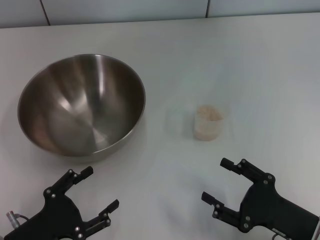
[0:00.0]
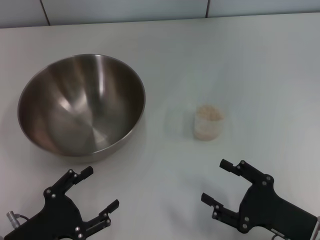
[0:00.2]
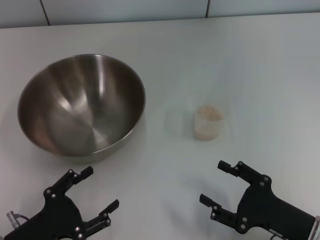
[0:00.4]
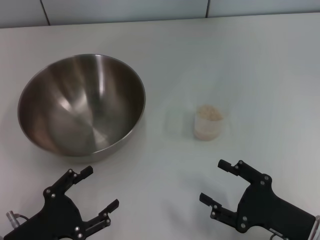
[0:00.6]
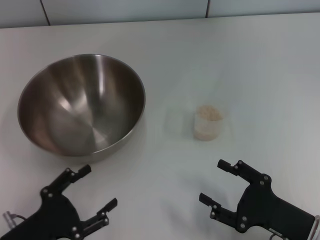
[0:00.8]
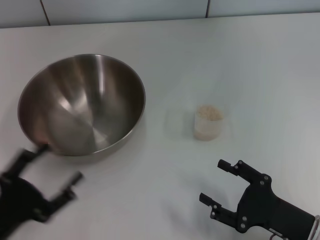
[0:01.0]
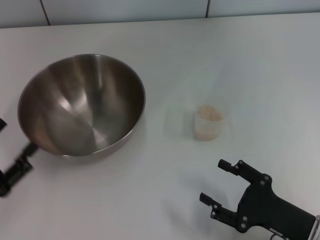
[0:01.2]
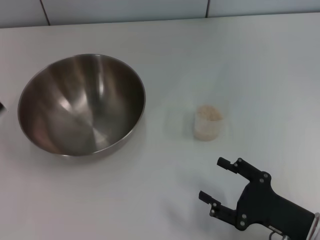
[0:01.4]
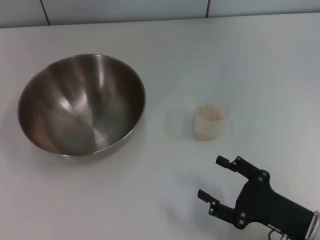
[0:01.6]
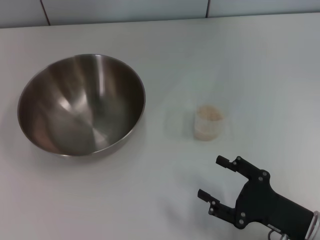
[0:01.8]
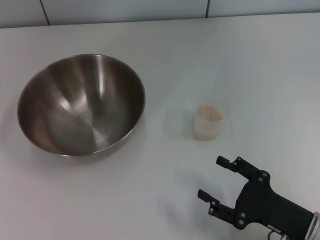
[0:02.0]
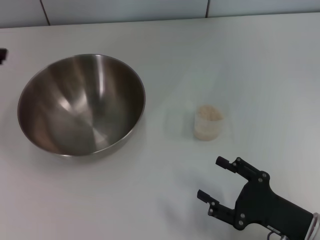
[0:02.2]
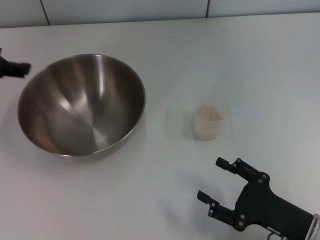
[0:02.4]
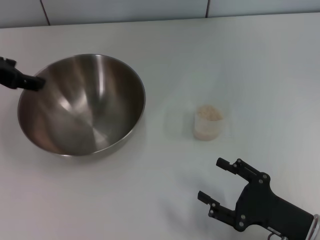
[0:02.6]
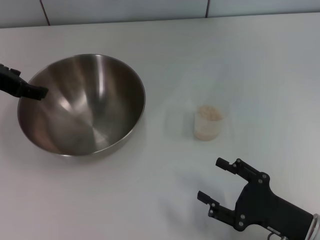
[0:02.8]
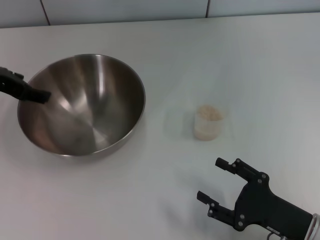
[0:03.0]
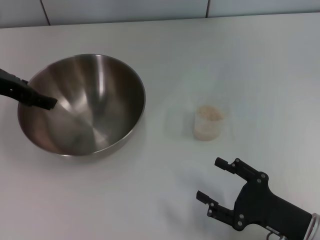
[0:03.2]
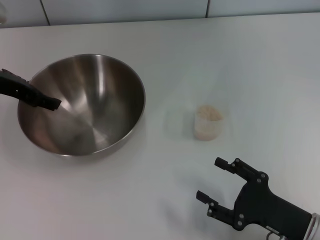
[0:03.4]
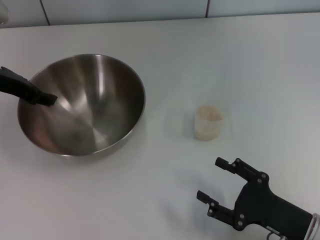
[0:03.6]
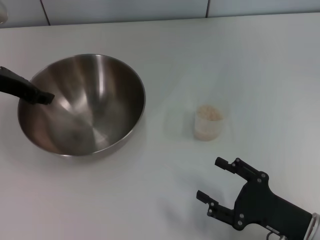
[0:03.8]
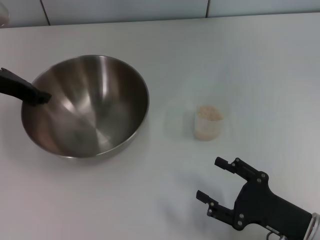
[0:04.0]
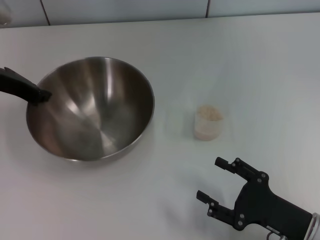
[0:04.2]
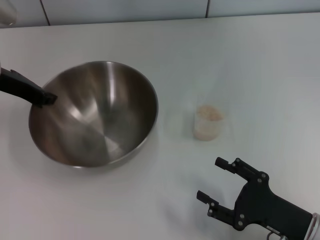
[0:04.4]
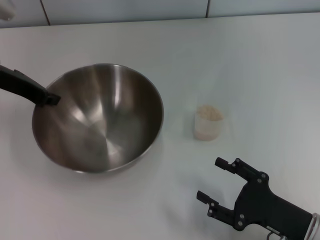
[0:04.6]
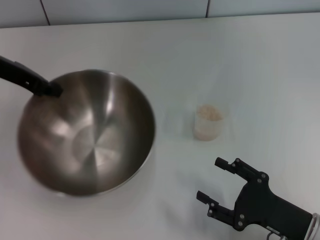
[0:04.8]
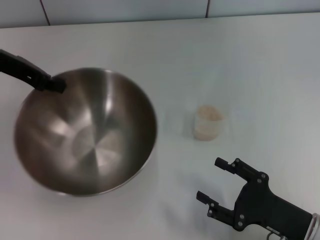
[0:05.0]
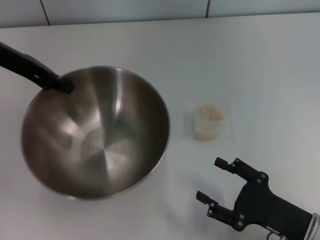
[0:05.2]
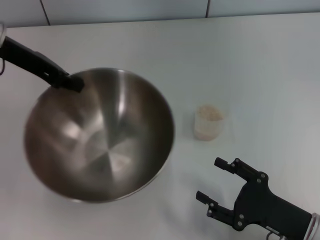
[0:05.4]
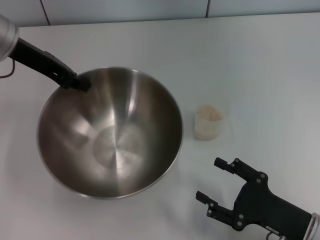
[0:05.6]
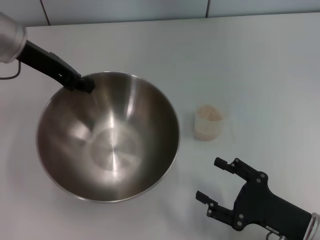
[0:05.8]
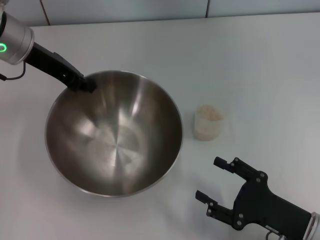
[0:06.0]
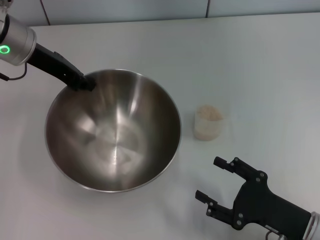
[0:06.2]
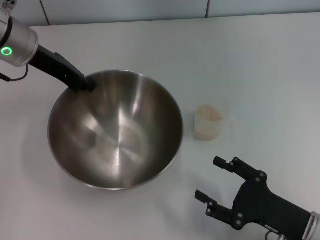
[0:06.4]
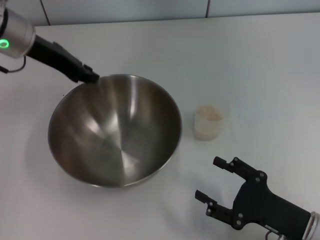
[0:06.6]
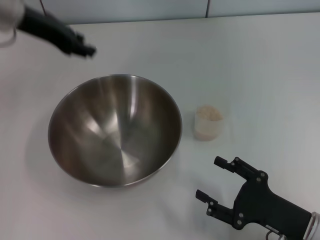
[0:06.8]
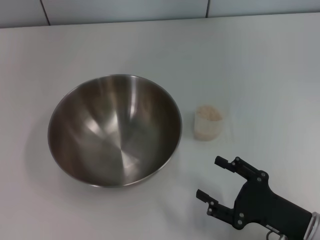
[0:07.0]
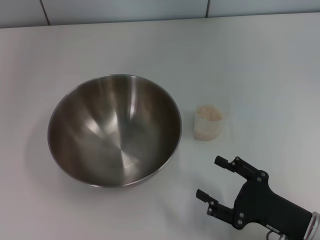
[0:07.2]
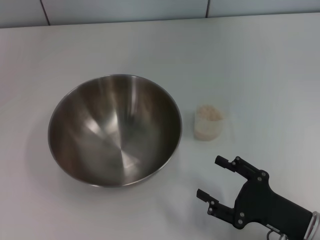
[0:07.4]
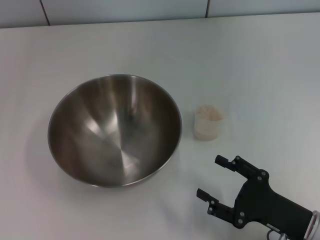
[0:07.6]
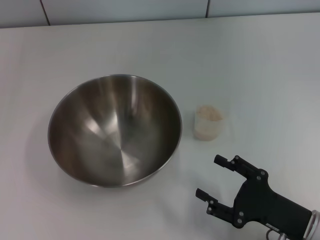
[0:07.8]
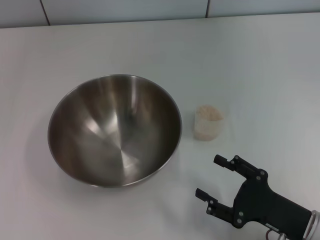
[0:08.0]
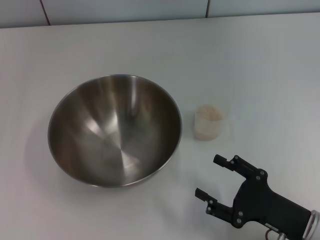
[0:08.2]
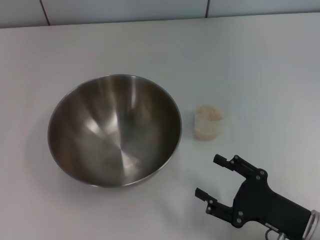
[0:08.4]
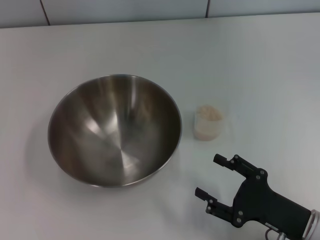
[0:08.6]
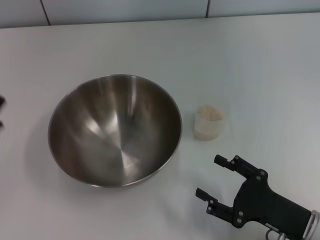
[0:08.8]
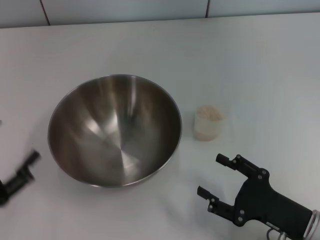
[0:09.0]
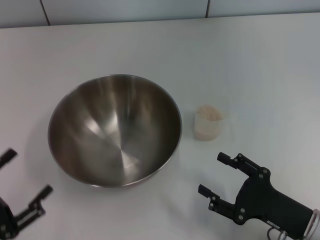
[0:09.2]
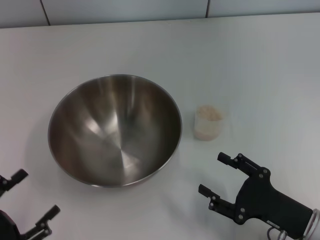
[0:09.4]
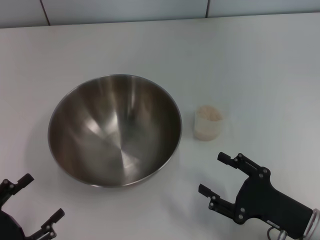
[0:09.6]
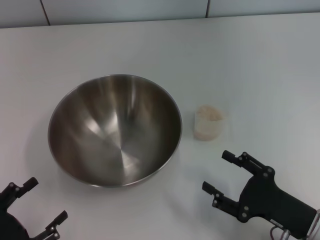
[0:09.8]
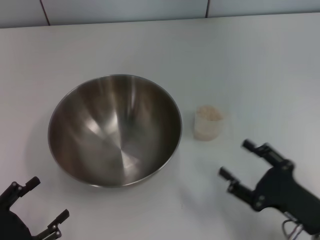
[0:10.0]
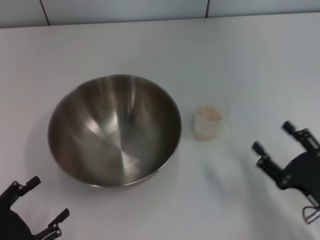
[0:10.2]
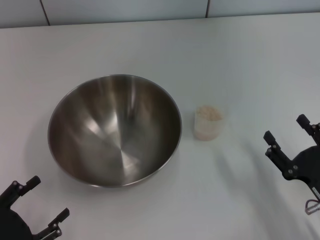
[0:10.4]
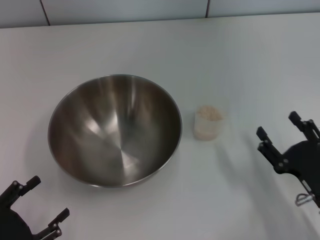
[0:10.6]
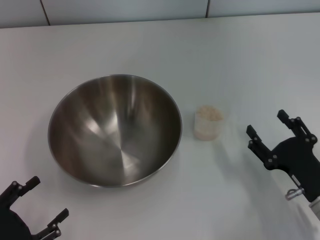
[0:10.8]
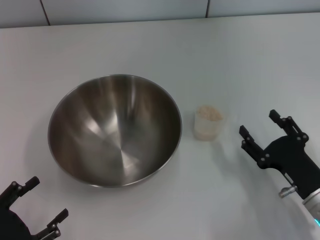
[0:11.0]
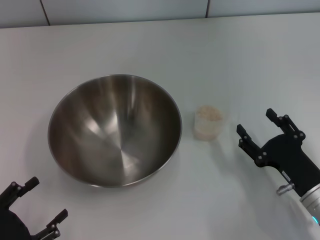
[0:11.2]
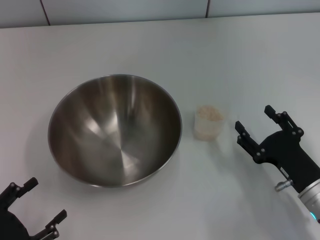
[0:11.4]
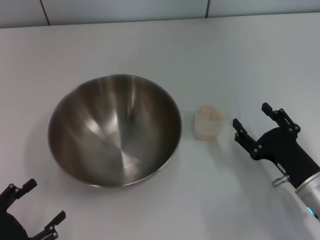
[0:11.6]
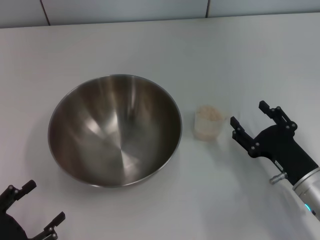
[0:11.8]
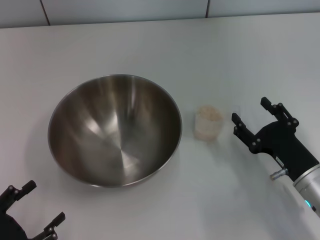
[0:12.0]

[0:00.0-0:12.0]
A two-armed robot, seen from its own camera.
Task of the whole recording: Place the bowl in the middle of the table with one hand and pour the rice from the grain cup into it with the other hand.
Step, 0:00.0 to 0:05.0: Pick up the bowl with the left gripper.
Step, 0:05.2 to 0:06.8: Place the bowl in the center of view with the left gripper.
0:00.0 to 0:01.6: The left gripper travels upward, to the left and forward by roughly 20 cm.
0:01.6 to 0:03.0: The left gripper shifts some 15 cm forward and to the right.
0:03.0 to 0:04.4: The left gripper closes up.
0:04.4 to 0:06.0: The left gripper shifts by some 5 cm.
0:06.0 to 0:07.6: The left gripper shifts about 15 cm backward, to the left and upward, and opens its fingers.
0:07.6 to 0:09.0: The left gripper moves downward and backward, roughly 25 cm.
0:09.0 to 0:10.4: The left gripper ends up some 5 cm from where it was.
0:10.4 to 0:12.0: The right gripper goes some 5 cm forward.

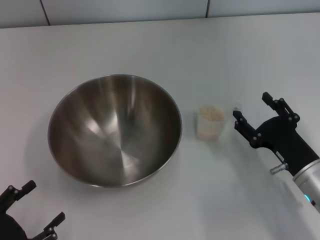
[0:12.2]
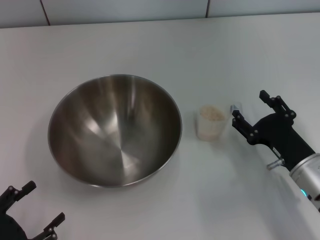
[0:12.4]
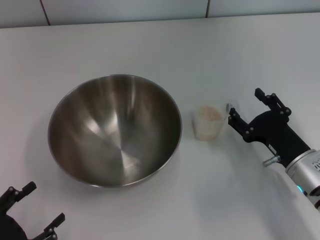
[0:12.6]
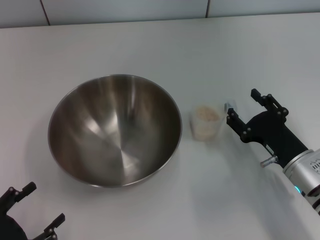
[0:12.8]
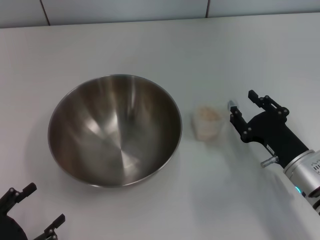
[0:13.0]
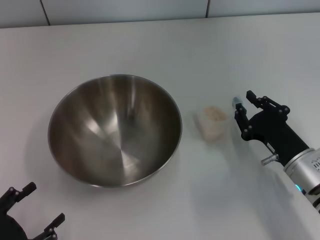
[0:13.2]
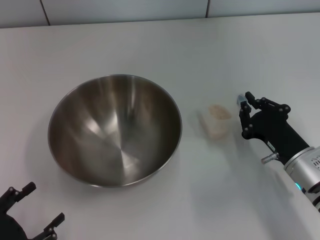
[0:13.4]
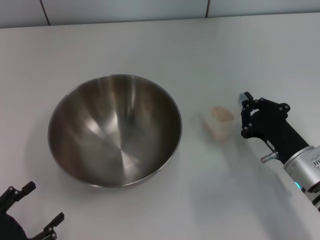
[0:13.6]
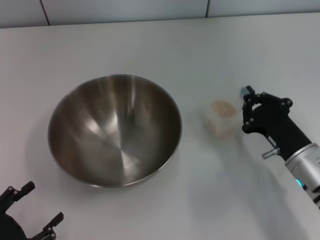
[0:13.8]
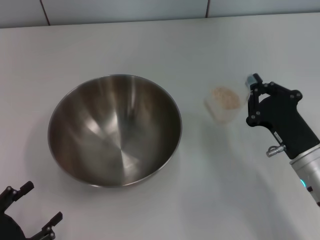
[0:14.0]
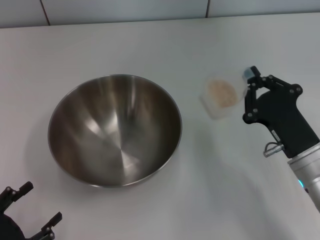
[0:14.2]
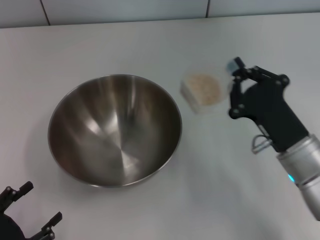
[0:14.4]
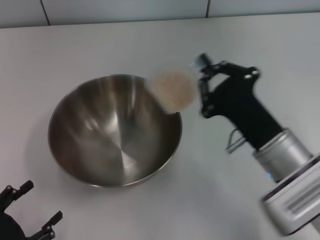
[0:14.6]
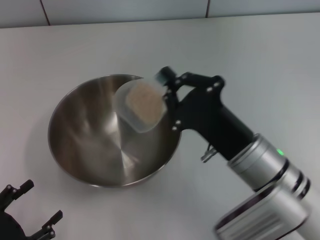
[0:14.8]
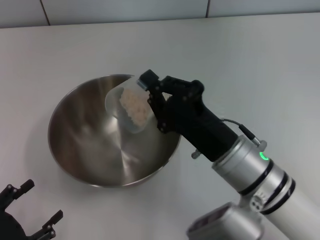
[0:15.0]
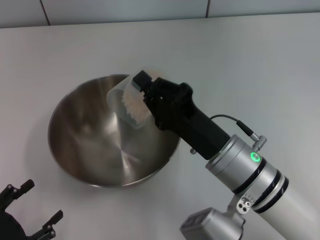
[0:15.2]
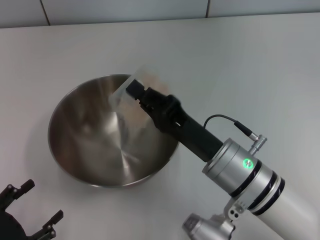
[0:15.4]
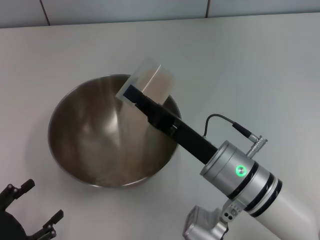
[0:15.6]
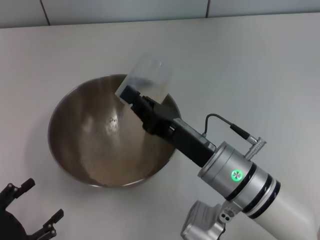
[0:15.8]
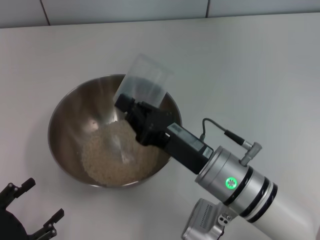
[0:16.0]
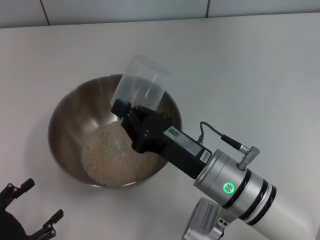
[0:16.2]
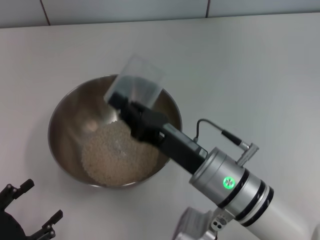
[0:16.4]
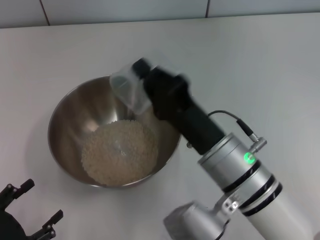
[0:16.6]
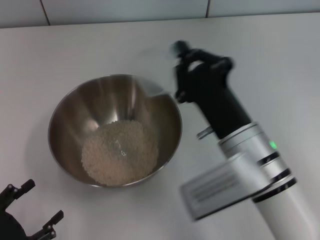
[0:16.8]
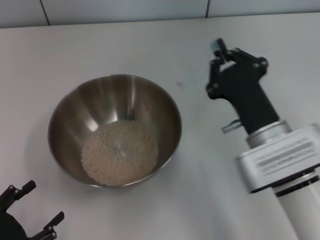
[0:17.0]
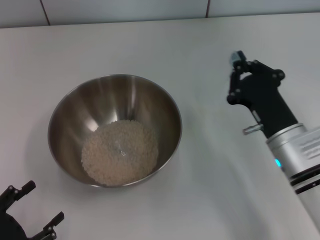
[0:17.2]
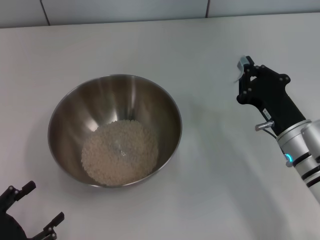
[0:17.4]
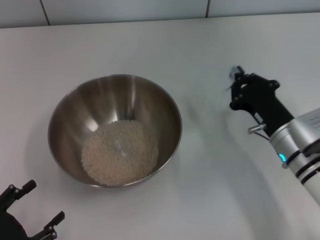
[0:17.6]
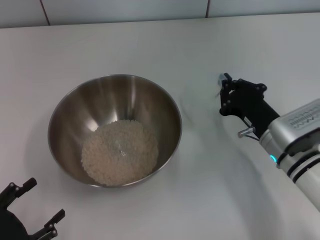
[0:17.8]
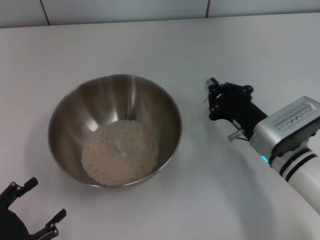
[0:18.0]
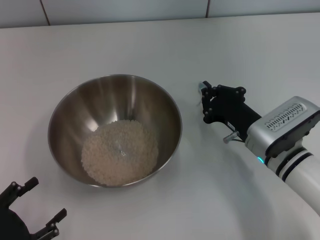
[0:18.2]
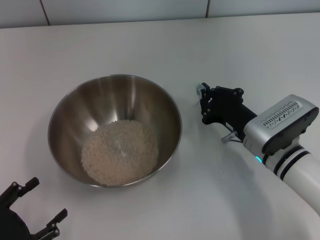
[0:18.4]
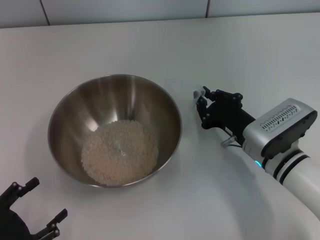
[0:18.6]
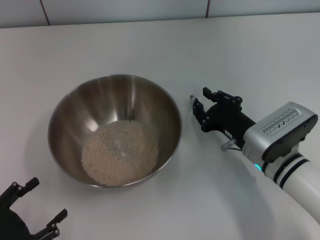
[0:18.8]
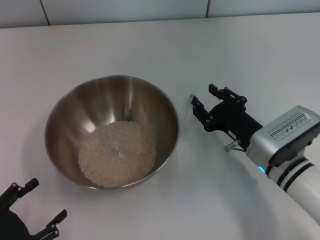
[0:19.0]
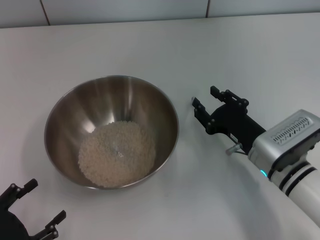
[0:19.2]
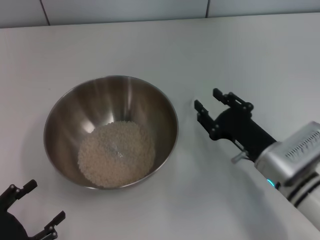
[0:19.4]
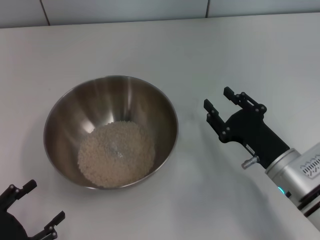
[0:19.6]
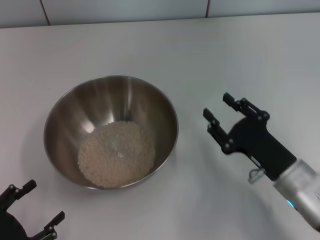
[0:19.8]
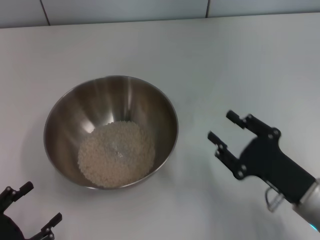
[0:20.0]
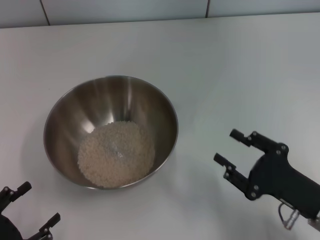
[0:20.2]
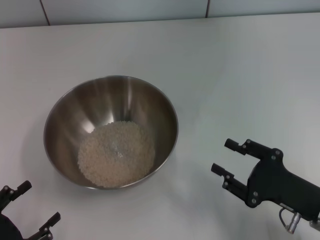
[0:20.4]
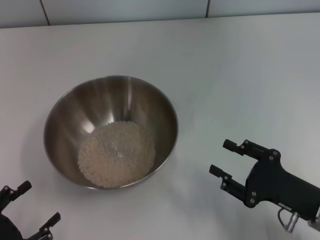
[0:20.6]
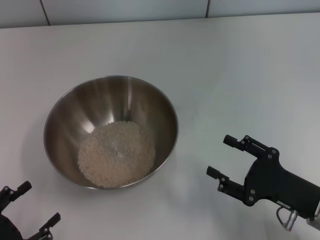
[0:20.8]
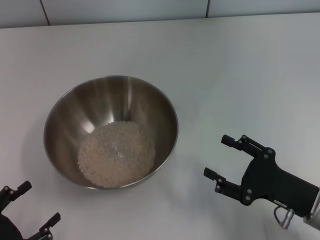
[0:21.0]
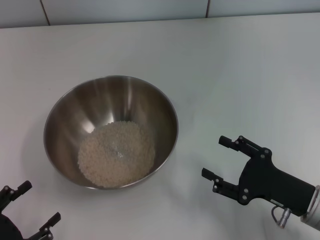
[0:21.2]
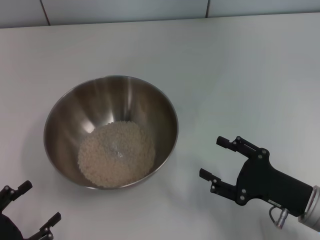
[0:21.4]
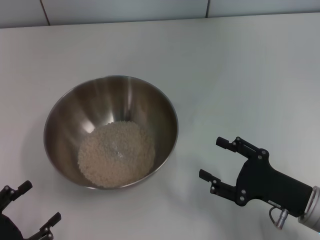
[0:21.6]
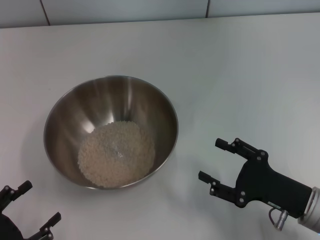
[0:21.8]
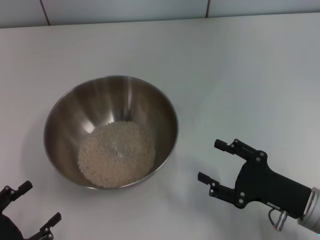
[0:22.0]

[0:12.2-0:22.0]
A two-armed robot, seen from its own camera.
Task of the whole recording: Place the bowl in the middle of the table with one hand and pour the rice from the grain cup into it with the other hand.
Step, 0:12.2 to 0:14.2: Pick up the cup with rice in it with the right gripper.
Step, 0:14.4 to 0:16.8: Pour the rice from the cup into the bowl with the right gripper.
Step, 0:17.0 to 0:19.4: Place the cup on the table with the right gripper.
0:12.2 to 0:13.6: The right gripper closes up.
0:13.6 to 0:15.0: The right gripper is displaced to the left and upward by roughly 15 cm.
0:16.4 to 0:17.8: The right gripper moves to the right, forward and downward, approximately 15 cm.
0:17.8 to 0:19.2: The right gripper opens its fingers.
0:19.2 to 0:20.6: The right gripper moves backward and to the right, approximately 10 cm.
0:20.6 to 0:22.0: The two grippers keep their place.
